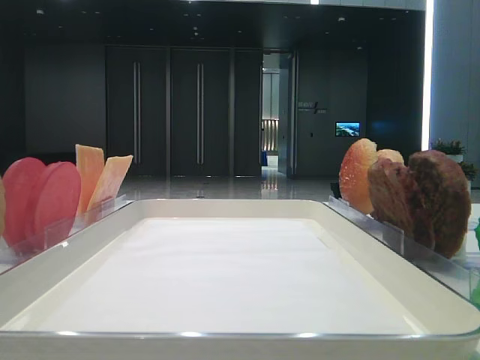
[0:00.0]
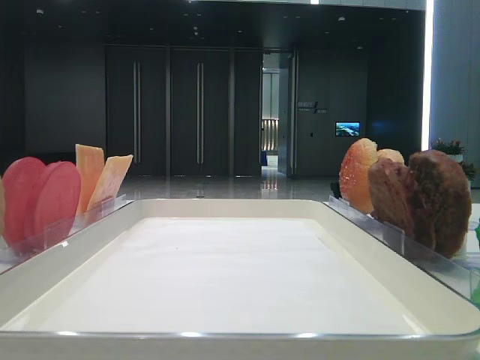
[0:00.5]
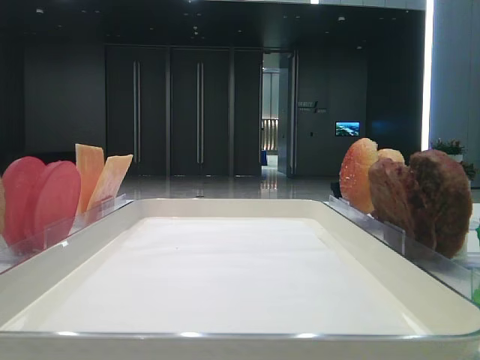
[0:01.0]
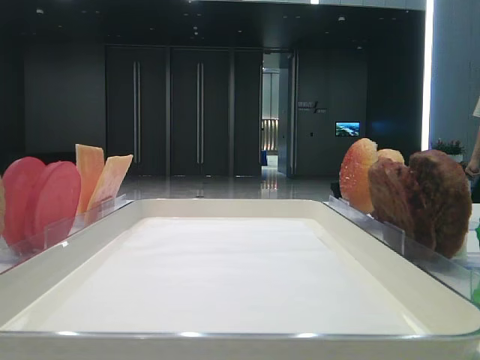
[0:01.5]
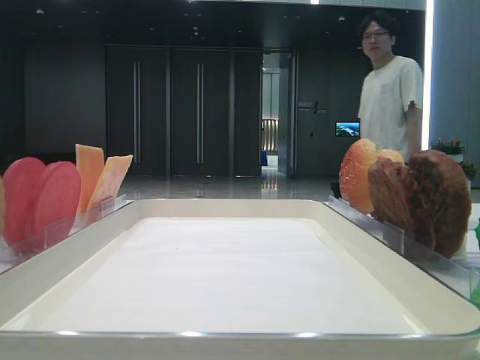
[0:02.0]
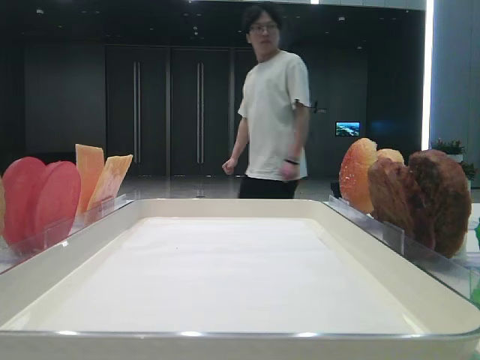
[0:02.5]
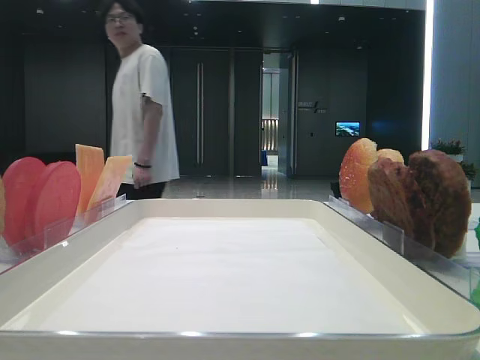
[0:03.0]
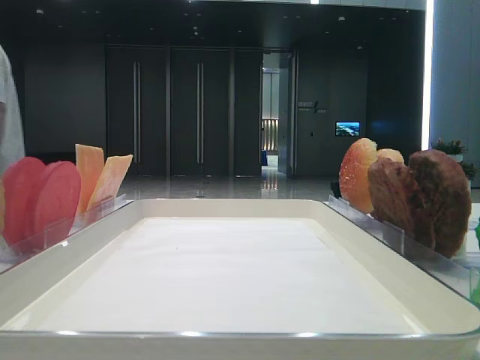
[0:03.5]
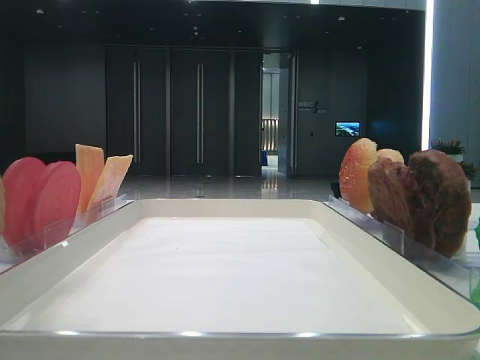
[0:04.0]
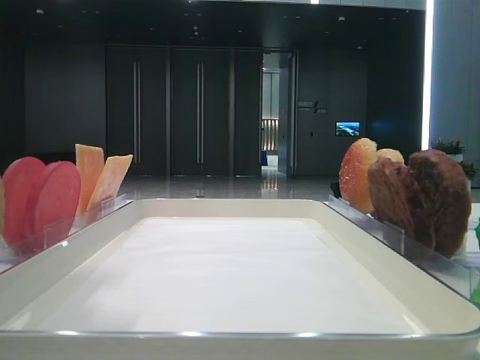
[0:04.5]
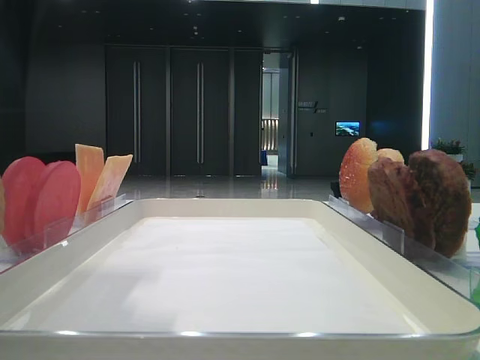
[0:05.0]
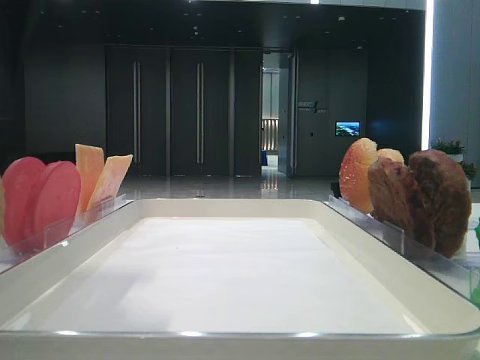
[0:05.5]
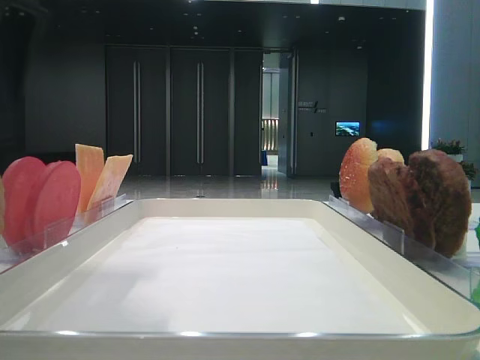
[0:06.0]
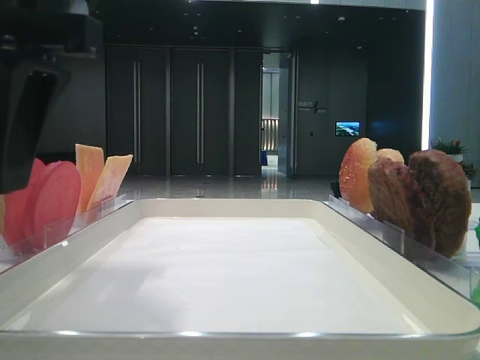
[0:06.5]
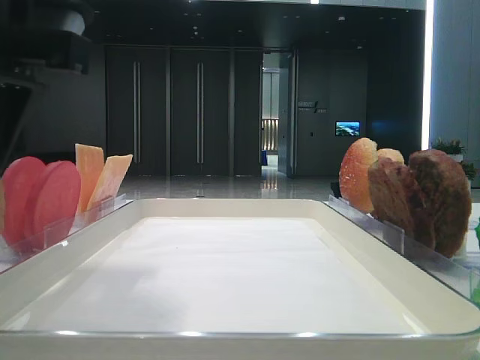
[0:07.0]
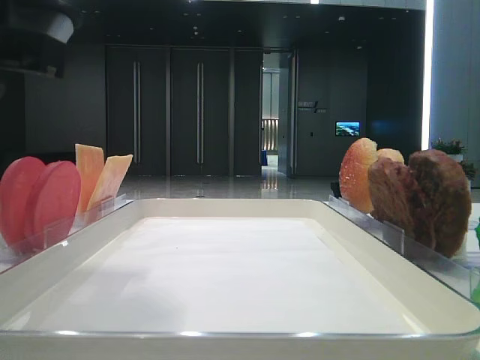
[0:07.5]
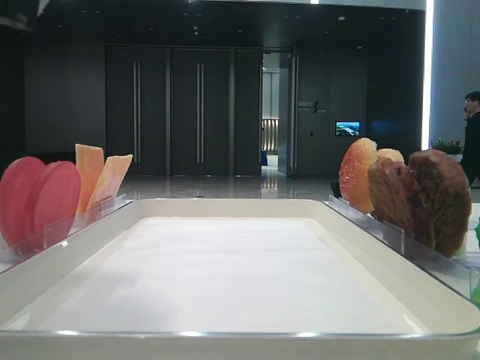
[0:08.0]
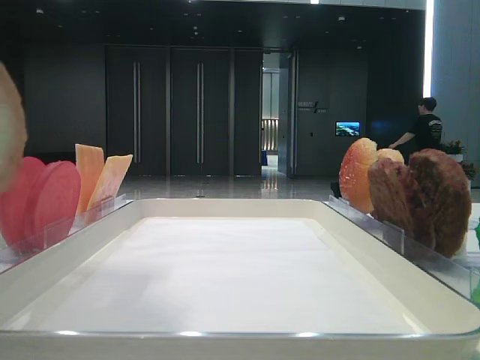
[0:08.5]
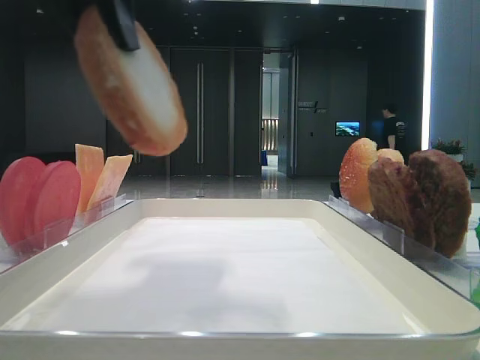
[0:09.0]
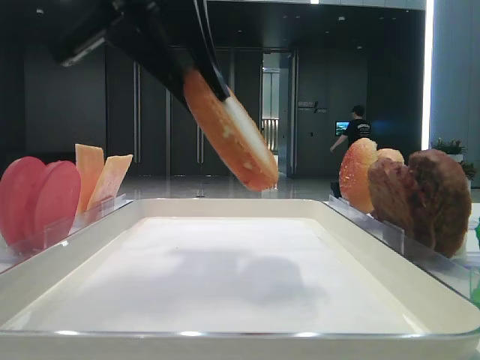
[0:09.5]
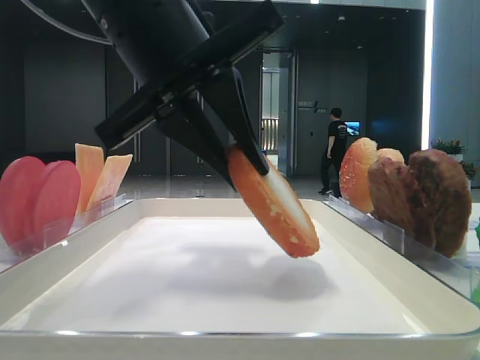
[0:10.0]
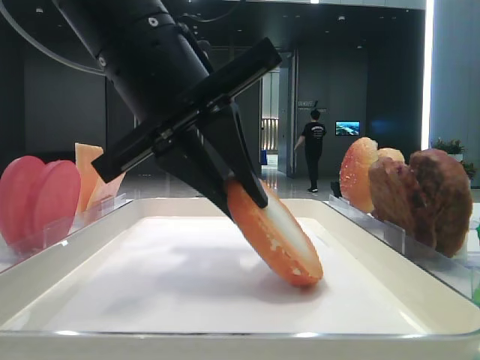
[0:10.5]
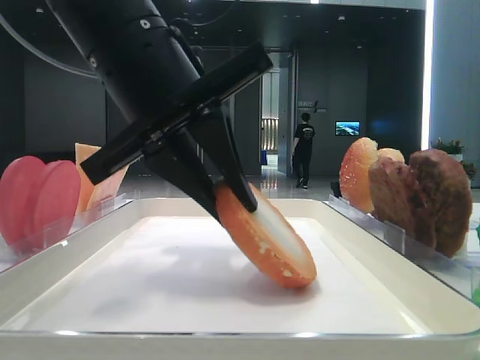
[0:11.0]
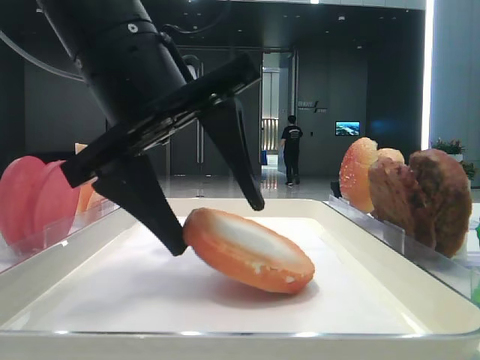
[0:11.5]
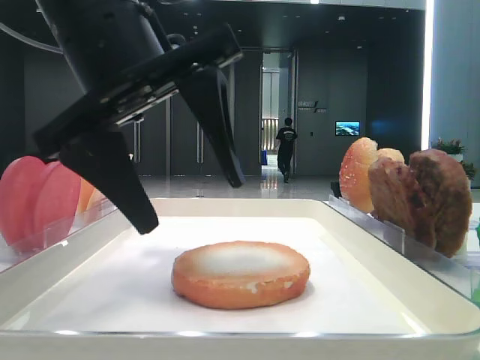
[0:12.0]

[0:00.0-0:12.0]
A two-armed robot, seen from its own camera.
Step, 0:00.0 to 0:06.5: Pick up the bottom bread slice with the left hand.
Step, 0:07.0 to 0:11.5: Place the bottom bread slice on the tray with the left hand.
0:02.0 to 0:04.0: The left gripper is displaced to the right and forward by some 15 cm.
0:04.0 to 0:06.0: The left gripper travels downward and to the right by approximately 10 cm.
0:08.0 to 0:10.0: The left gripper is displaced to the right and forward by some 10 cm.
0:10.0 to 0:12.0: The left gripper opens.

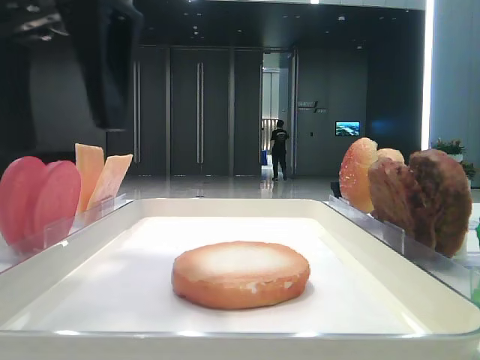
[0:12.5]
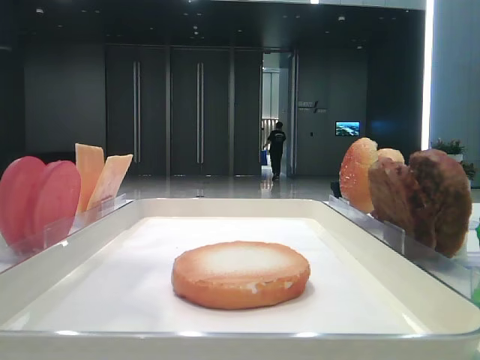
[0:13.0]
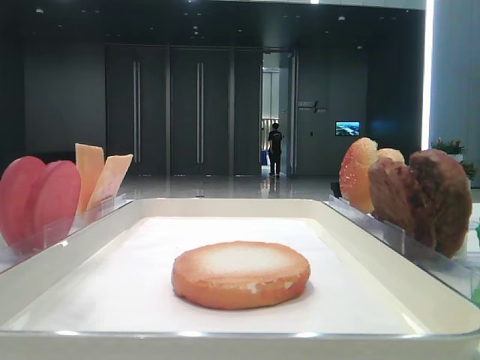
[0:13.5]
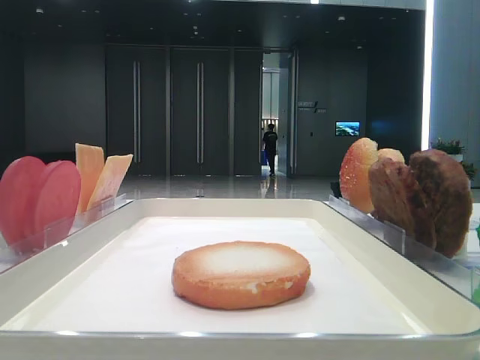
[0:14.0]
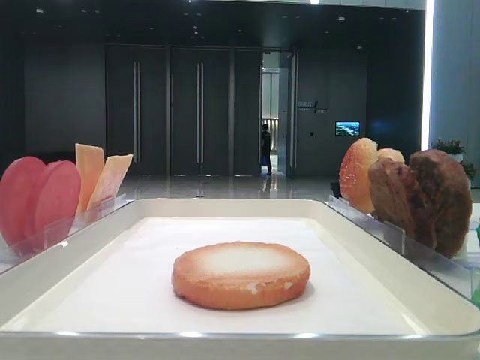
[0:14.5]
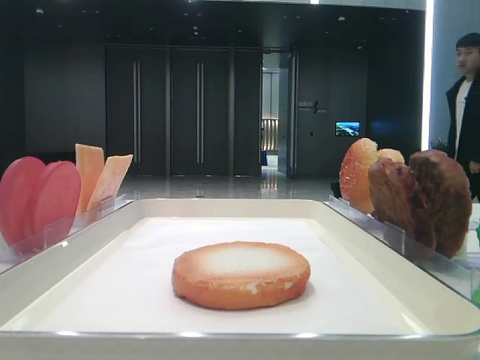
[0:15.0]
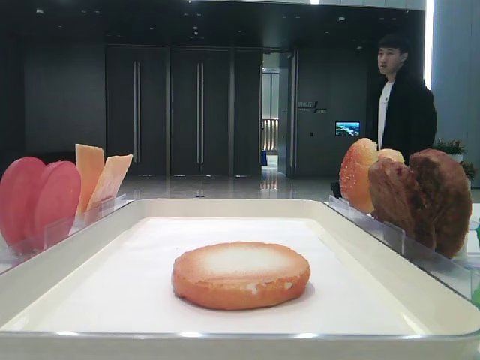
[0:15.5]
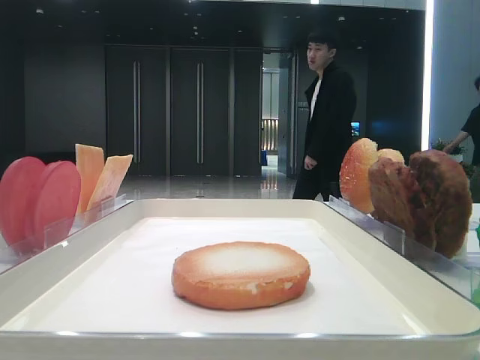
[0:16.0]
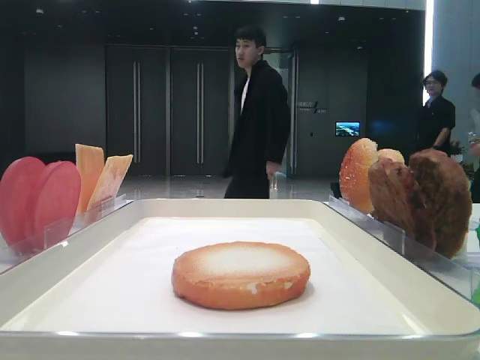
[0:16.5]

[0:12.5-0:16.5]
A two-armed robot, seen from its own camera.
0:12.5 to 0:14.5: The left gripper moves to the left, backward and upward, some 25 cm.
0:14.5 to 0:16.5: The left gripper moves backward and downward, roughly 10 cm.

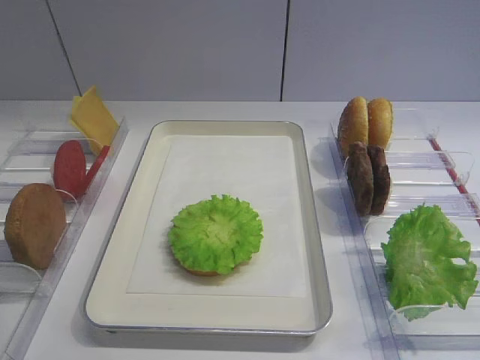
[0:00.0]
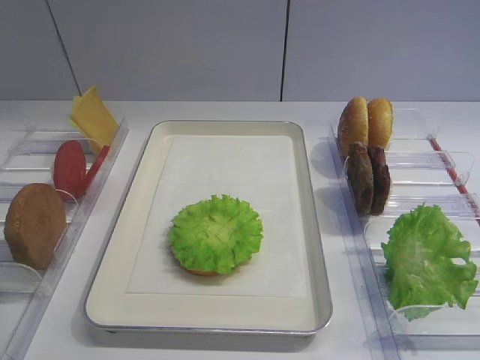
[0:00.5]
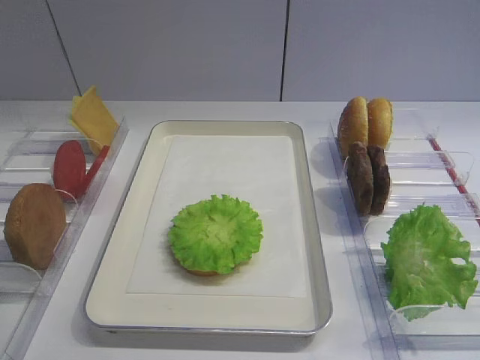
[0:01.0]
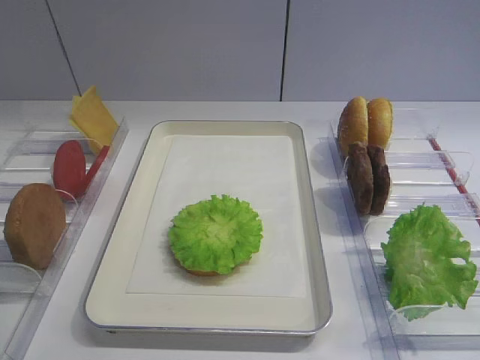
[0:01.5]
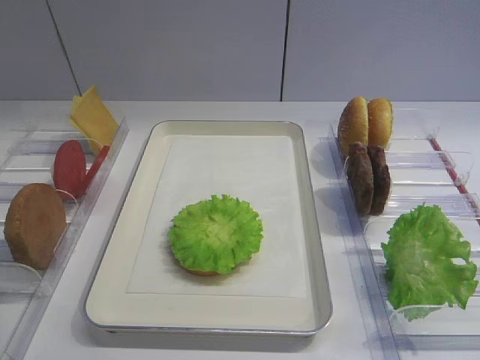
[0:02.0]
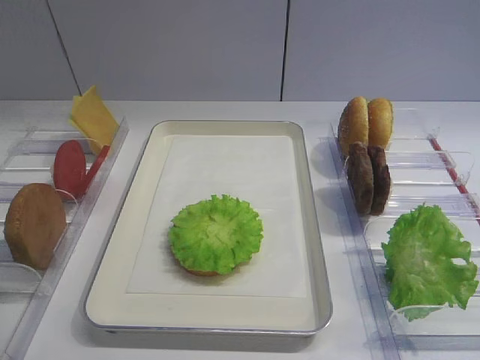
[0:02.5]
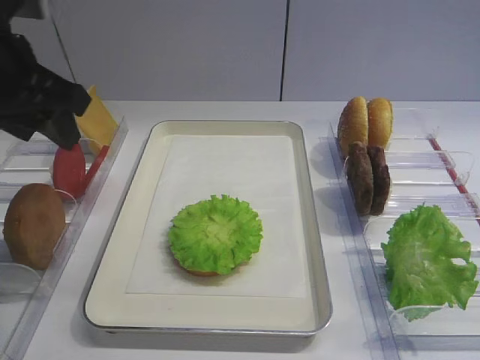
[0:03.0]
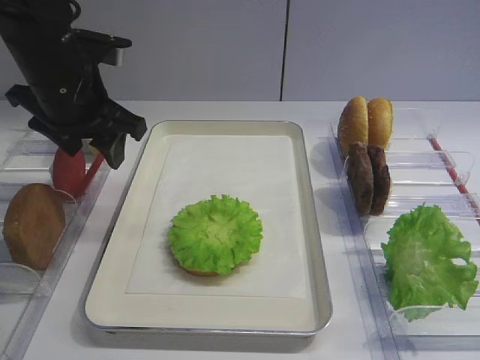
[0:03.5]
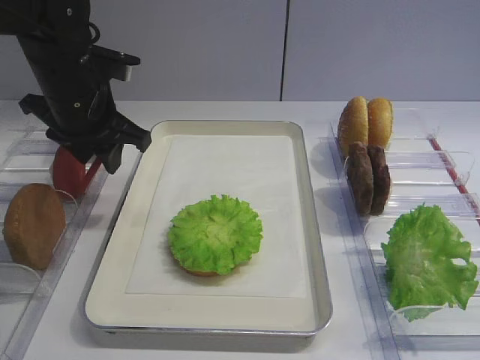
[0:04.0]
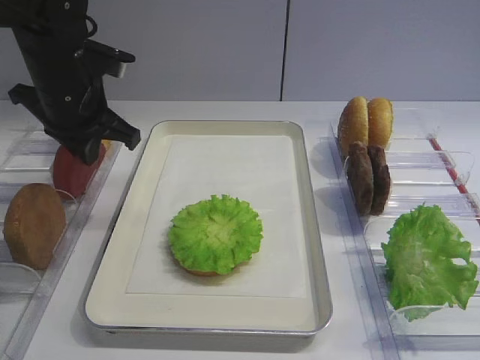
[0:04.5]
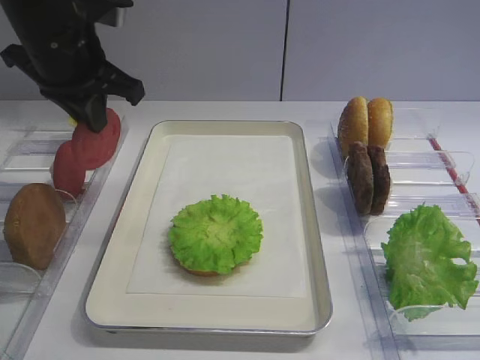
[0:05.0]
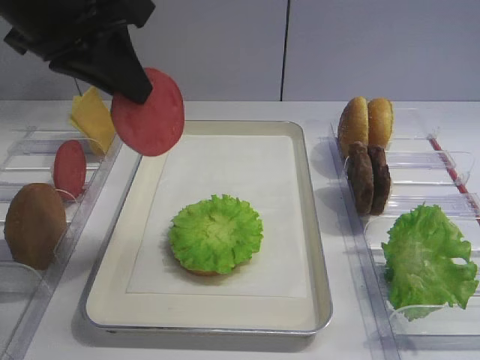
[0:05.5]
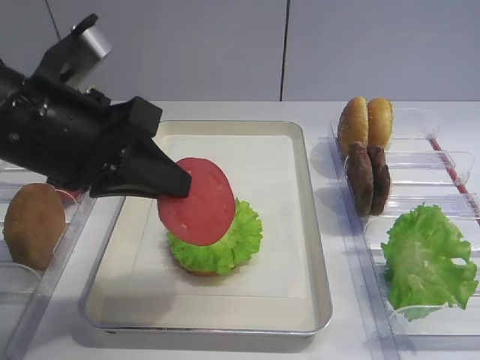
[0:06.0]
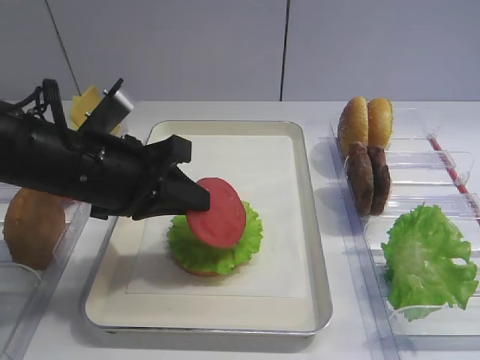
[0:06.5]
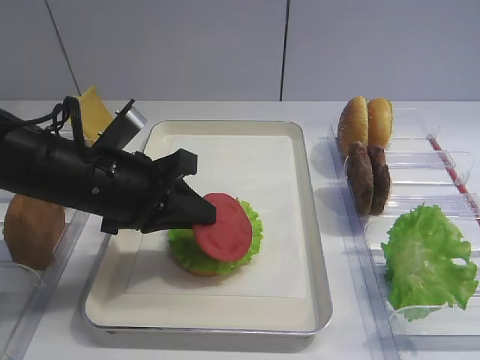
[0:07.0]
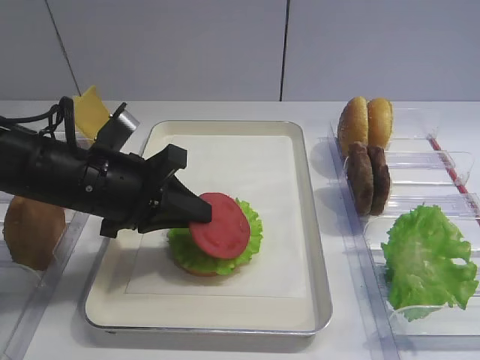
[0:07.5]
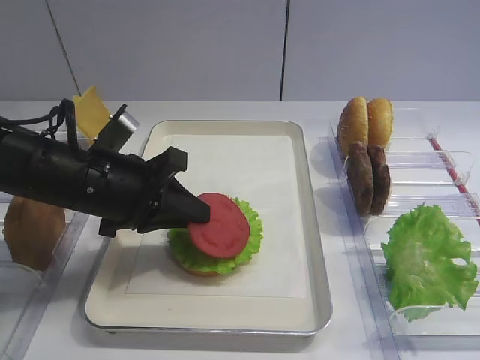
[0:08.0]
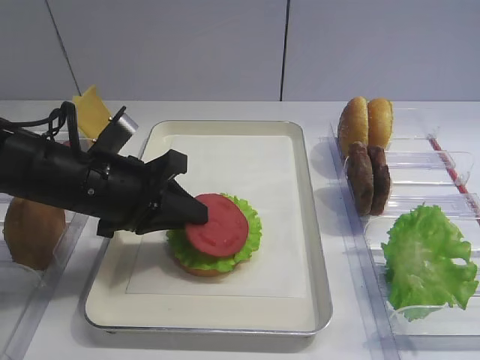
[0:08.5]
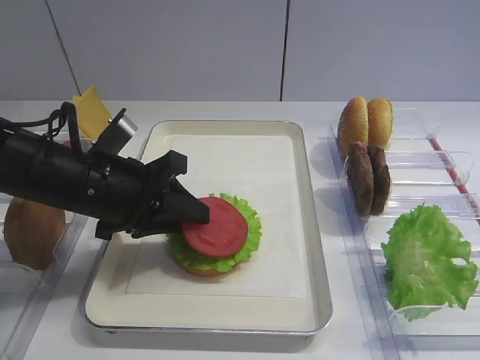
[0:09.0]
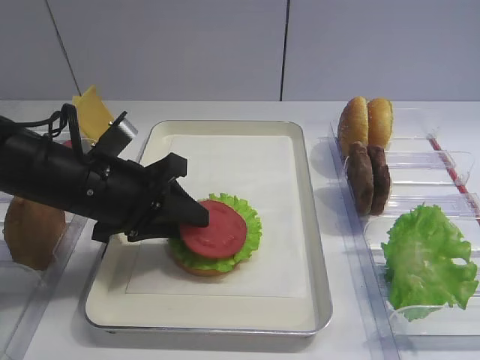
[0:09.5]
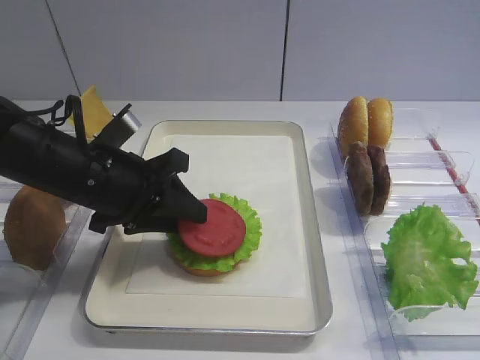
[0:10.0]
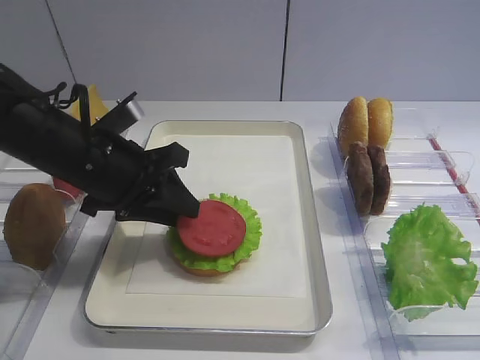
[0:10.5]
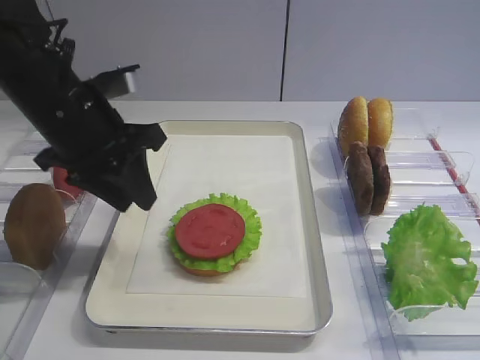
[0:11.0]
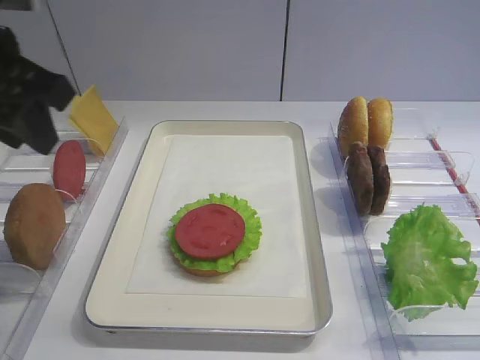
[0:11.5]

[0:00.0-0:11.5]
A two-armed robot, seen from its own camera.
Step, 0:00.0 to 0:04.5: Pick up the tomato slice with the left gripper.
Step, 0:05.0 to 0:10.5: Place the tomato slice on the lettuce leaf with the left gripper.
0:02.0 to 0:04.0: The left gripper moves forward, about 35 cm.
0:04.0 to 0:06.0: The left gripper is displaced backward by approximately 15 cm, and closes up.
0:06.0 to 0:07.5: The left gripper goes roughly 10 cm downward.
0:07.5 to 0:09.5: The left gripper opens up.
0:09.5 to 0:11.5: The left gripper travels upward and to the left by about 15 cm.
